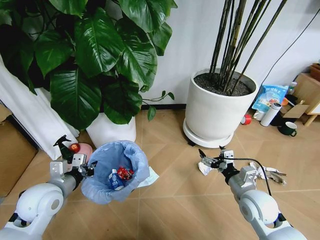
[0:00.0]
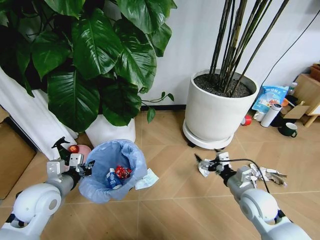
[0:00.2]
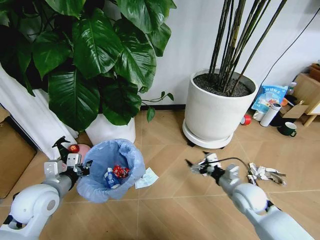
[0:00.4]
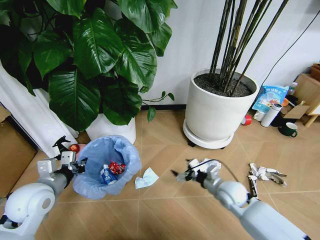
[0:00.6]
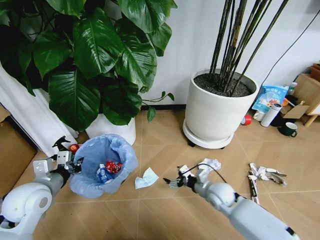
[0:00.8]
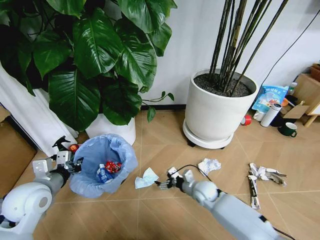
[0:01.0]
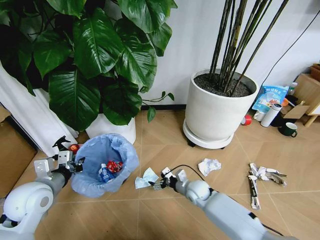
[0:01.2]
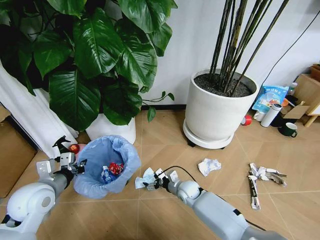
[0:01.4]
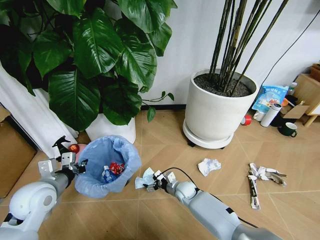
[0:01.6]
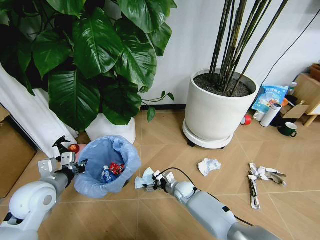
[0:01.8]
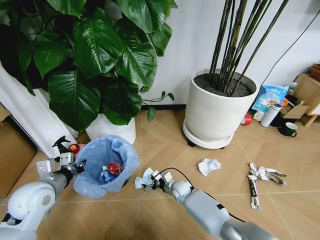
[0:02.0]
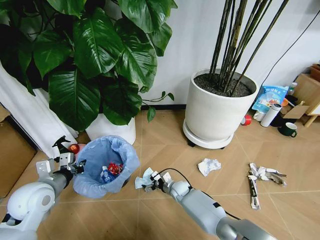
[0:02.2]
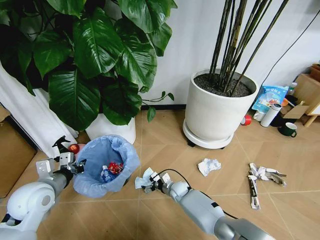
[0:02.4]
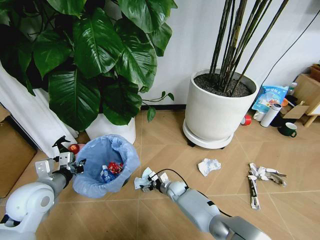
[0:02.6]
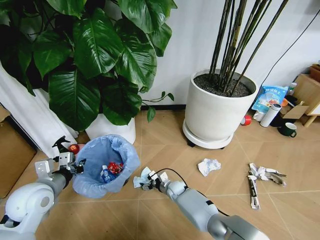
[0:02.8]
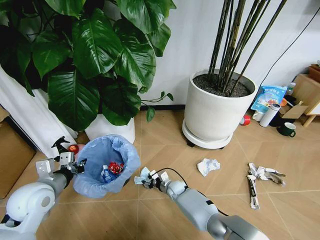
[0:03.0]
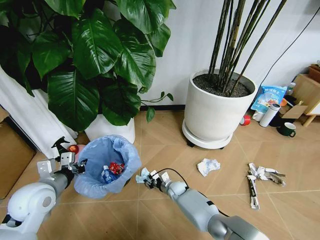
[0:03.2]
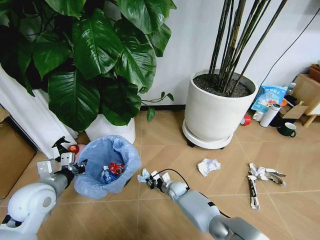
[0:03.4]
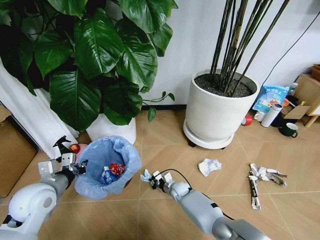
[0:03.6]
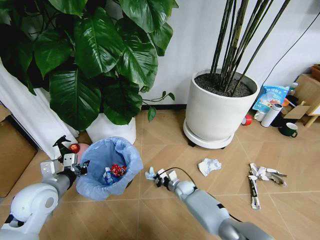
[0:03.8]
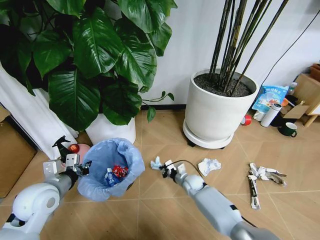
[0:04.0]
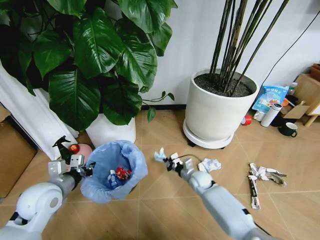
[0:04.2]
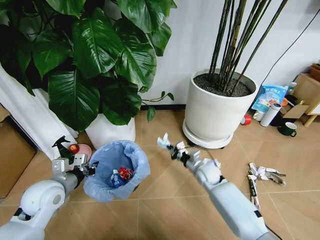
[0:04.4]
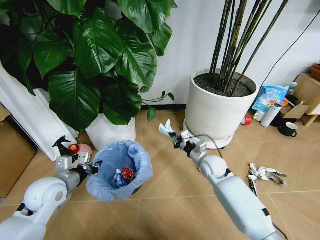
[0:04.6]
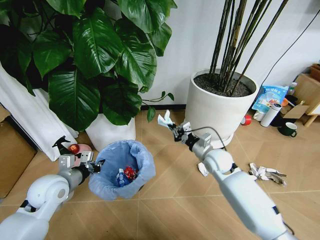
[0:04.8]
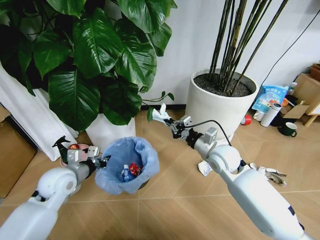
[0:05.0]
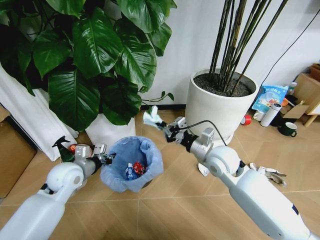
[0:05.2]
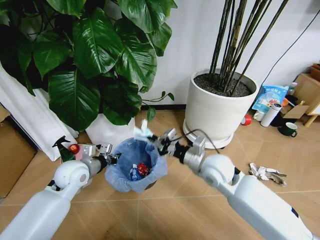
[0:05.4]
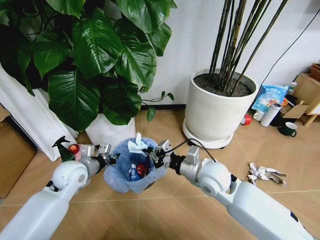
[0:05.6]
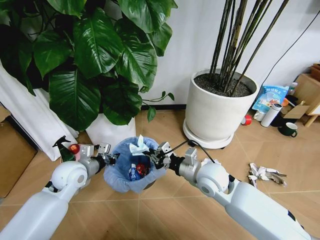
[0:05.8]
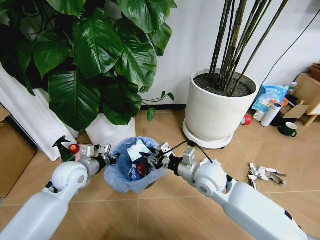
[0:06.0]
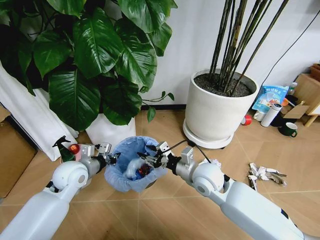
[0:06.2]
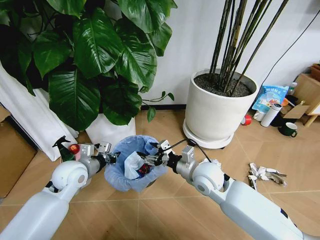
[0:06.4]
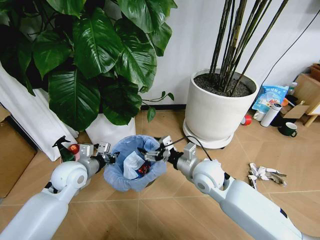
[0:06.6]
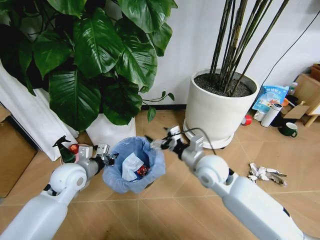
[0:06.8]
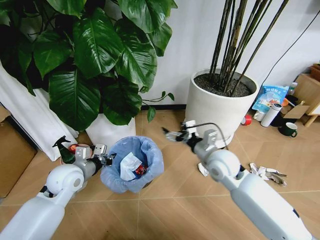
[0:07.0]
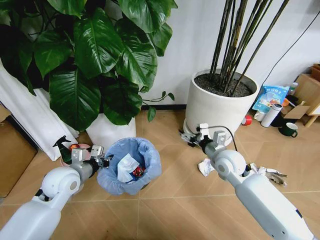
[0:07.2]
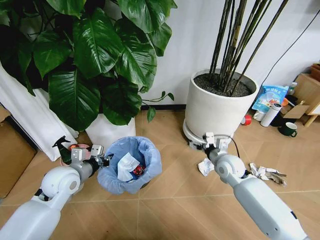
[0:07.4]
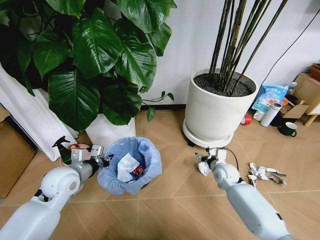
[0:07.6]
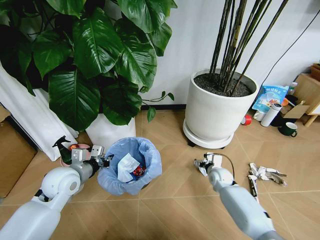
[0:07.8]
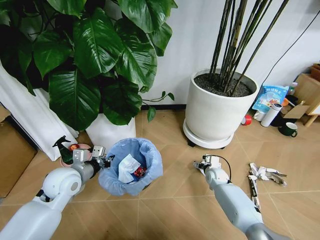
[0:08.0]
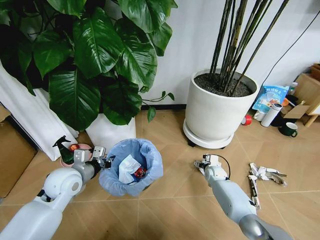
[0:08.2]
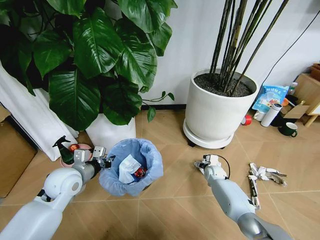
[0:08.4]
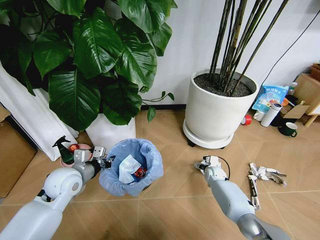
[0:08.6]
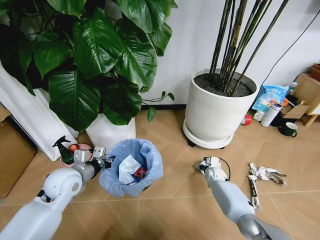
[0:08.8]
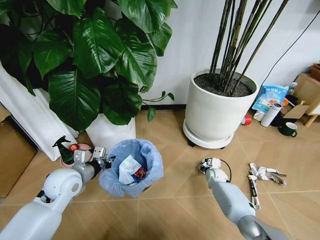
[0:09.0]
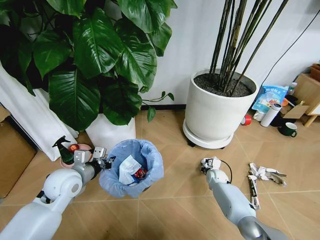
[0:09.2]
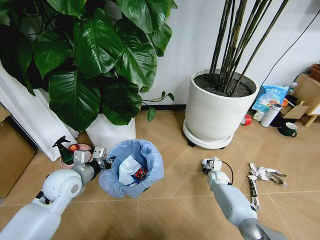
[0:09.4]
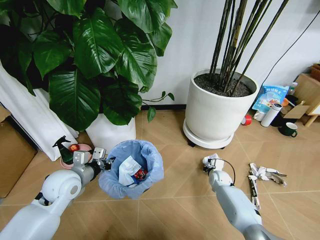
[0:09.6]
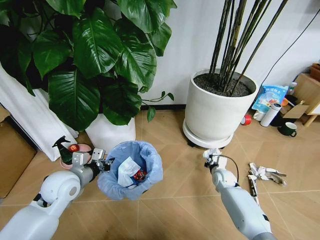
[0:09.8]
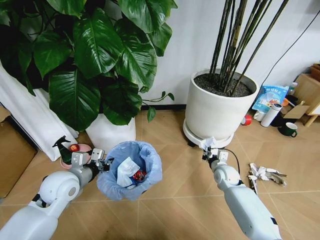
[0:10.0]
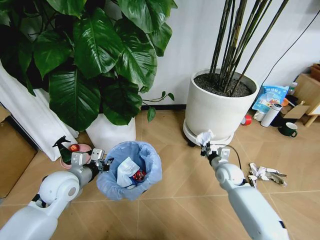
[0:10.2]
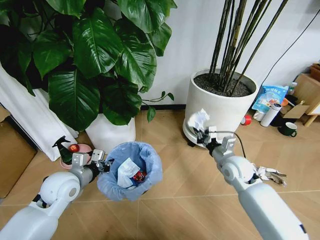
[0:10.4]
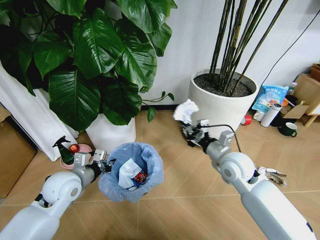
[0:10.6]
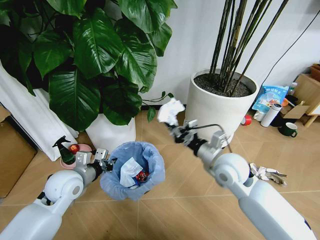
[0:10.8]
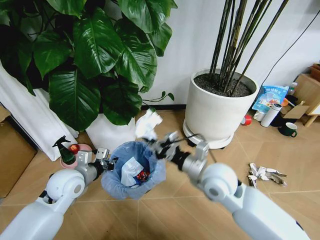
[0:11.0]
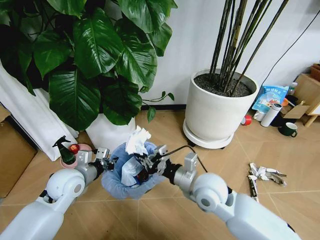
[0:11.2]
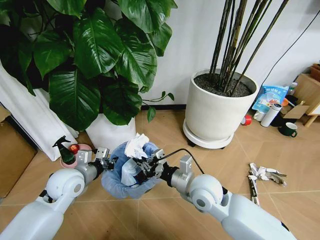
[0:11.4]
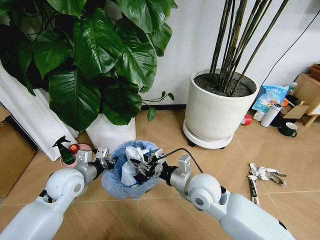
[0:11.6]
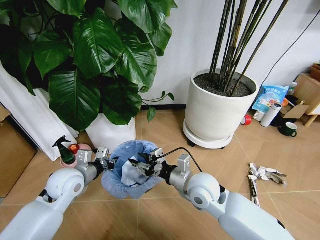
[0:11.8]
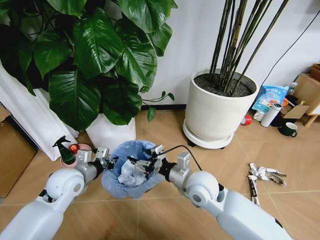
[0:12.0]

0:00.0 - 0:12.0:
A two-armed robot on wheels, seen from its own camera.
Task of the whole recording: Pick up the trash bin and place the garbage on the floor into it.
0:00.0 - 0:01.6: The right gripper travels downward, to the left and forward by about 30 cm.
0:01.6 - 0:03.0: The right gripper shifts by approximately 5 cm, and closes up.
0:03.0 - 0:04.4: The right gripper is displaced upward and to the right by some 20 cm, and closes its fingers.
0:04.4 - 0:06.0: The left gripper shifts about 5 cm forward; the right gripper heads upward and backward, covering about 15 cm.
0:06.0 - 0:07.6: The right gripper heads downward, to the right and forward, covering about 20 cm, and opens.
0:07.6 - 0:09.0: The right gripper shifts roughly 10 cm downward, and closes.
0:09.0 - 0:10.4: The right gripper is displaced upward by about 20 cm, and closes.
0:10.4 - 0:12.0: The right gripper goes some 15 cm to the left and backward, and opens.

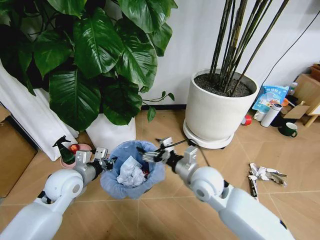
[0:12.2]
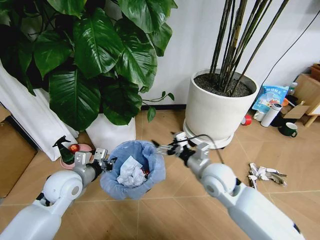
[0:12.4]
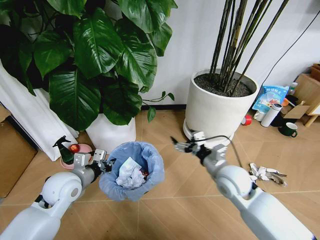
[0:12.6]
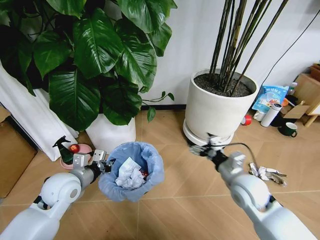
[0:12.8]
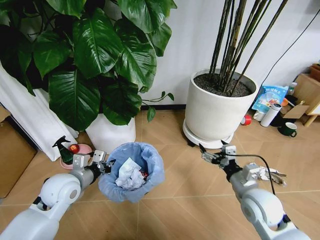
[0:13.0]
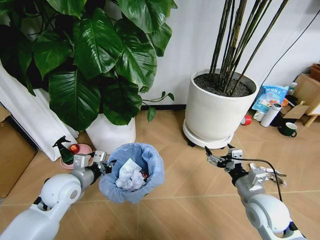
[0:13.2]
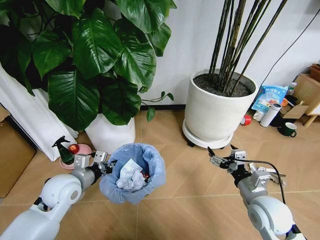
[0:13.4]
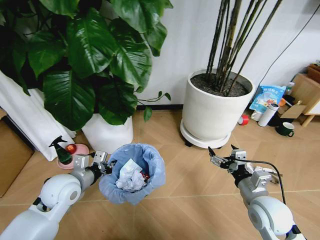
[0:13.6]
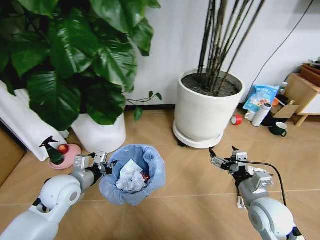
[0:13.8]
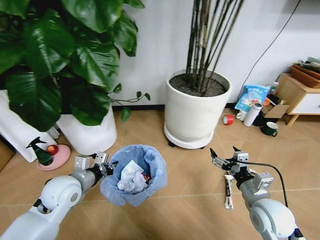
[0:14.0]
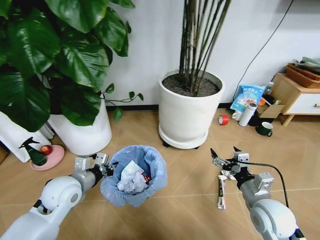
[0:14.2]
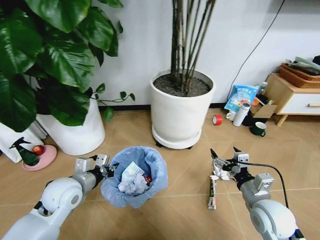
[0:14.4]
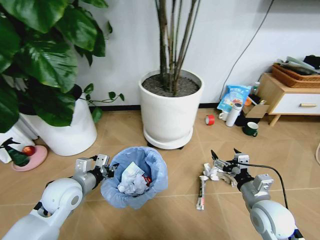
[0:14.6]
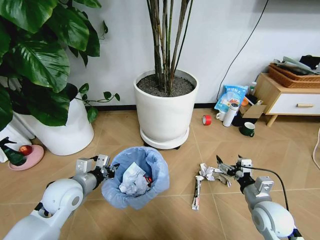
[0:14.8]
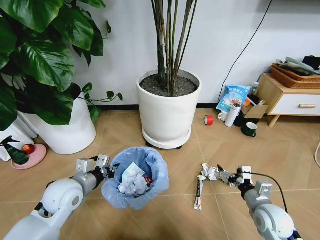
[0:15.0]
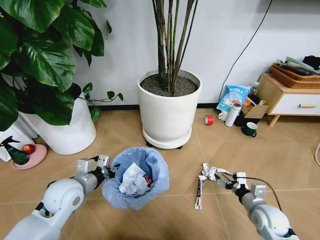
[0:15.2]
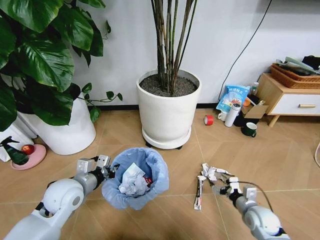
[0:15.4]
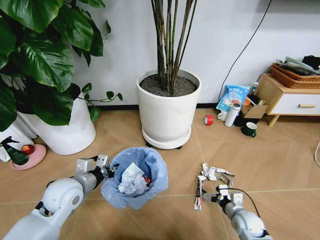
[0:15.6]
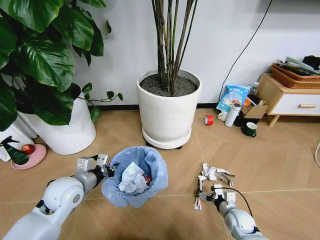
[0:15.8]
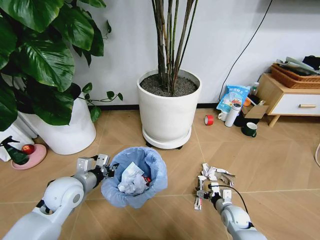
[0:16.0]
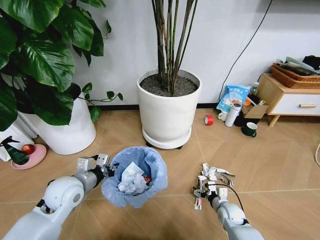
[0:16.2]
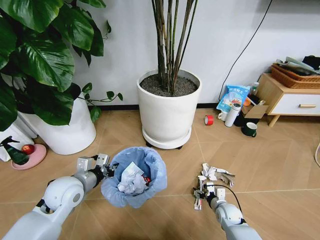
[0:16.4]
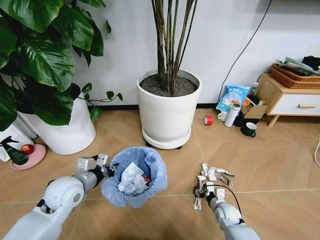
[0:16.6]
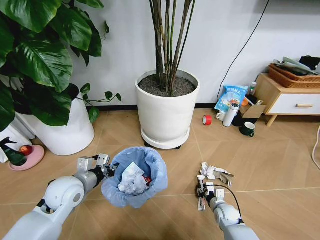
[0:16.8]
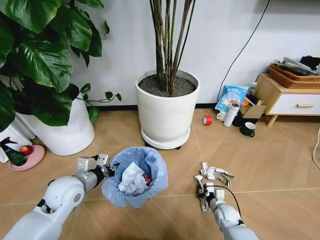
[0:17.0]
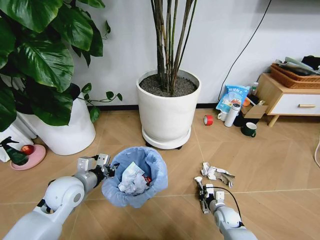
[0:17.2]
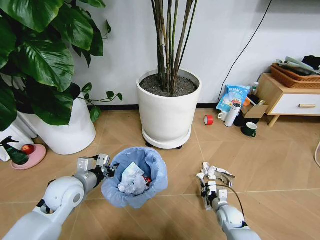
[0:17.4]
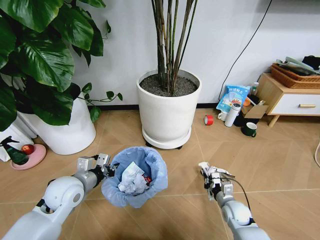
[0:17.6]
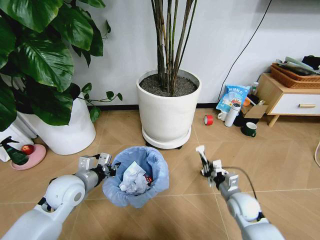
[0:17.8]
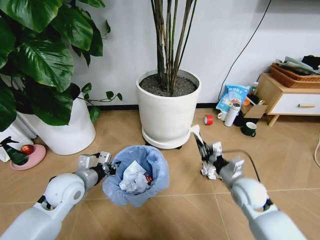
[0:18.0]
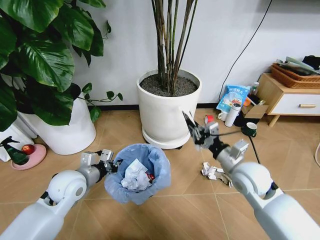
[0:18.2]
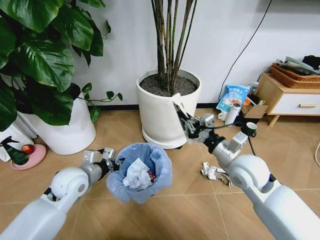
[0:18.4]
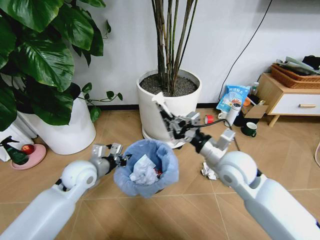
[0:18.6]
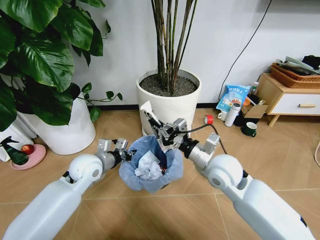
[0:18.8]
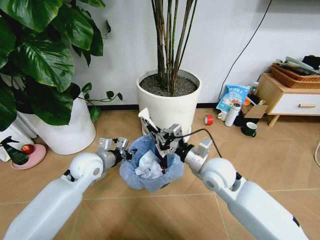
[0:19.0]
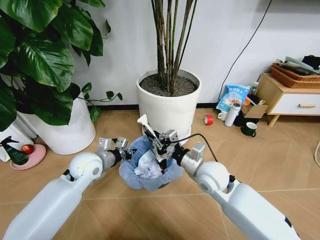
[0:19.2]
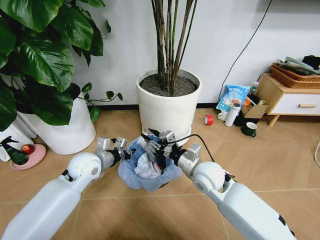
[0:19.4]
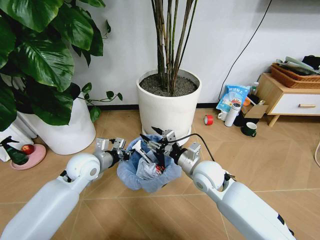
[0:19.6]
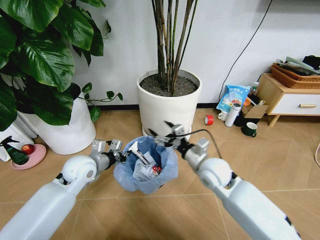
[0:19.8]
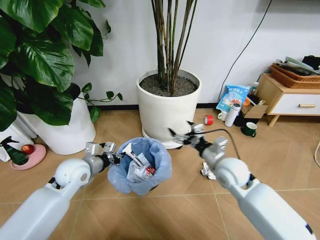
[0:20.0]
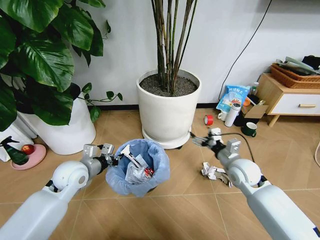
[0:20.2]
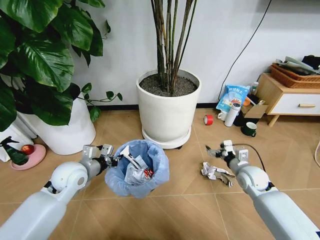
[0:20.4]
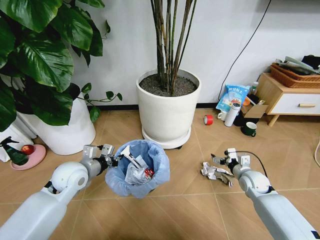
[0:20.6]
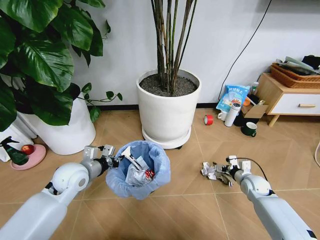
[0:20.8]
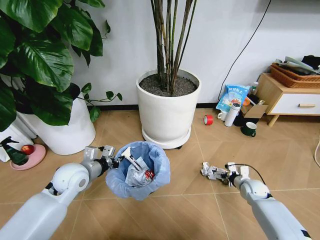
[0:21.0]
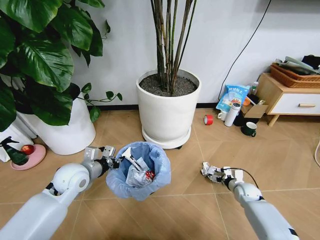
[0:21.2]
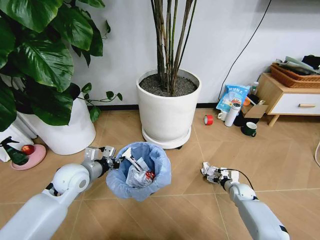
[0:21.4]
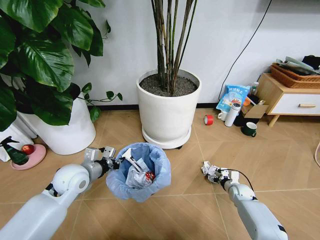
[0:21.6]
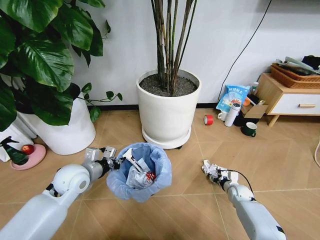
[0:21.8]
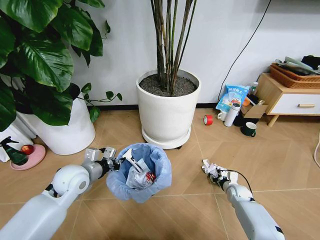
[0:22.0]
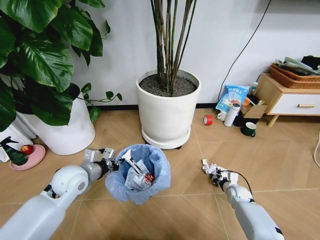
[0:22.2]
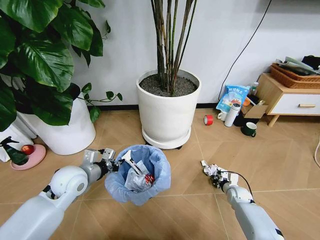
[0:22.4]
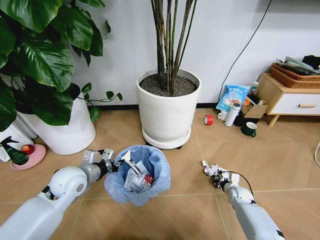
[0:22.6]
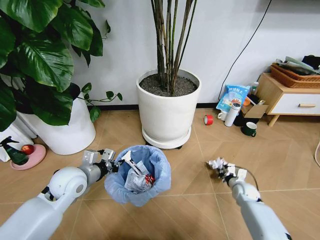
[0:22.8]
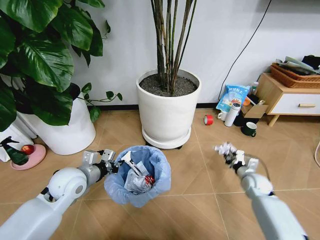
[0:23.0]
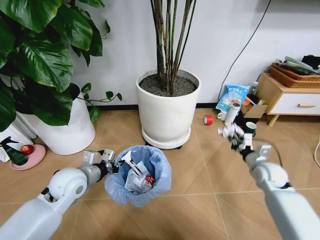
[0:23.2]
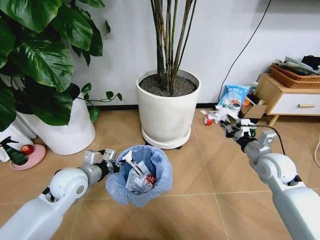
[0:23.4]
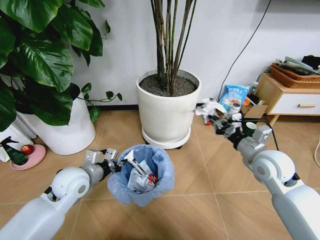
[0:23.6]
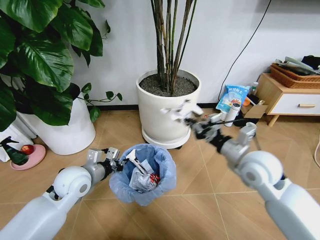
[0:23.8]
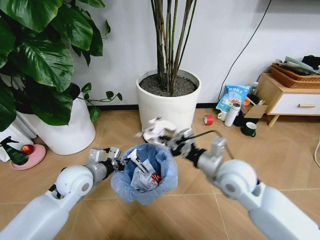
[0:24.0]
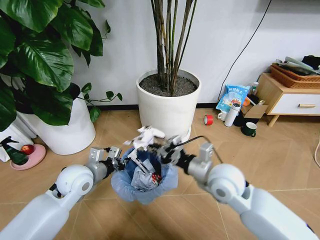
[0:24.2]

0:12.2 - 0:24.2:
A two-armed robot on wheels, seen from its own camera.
Task of the whole recording: Pick up the trash bin and place the garbage on the floor into it.
0:12.2 - 0:13.8: The right gripper goes approximately 20 cm to the right and backward.
0:13.8 - 0:15.2: The right gripper travels downward and to the right by roughly 15 cm.
0:15.2 - 0:16.6: The right gripper moves downward and to the left, approximately 15 cm, and closes up.
0:16.6 - 0:18.2: The right gripper travels upward by some 30 cm, and closes its fingers.
0:18.2 - 0:19.8: The right gripper heads to the left, covering some 10 cm, and opens up, while the left gripper moves forward, approximately 5 cm.
0:19.8 - 0:21.2: The right gripper travels downward and to the right by some 35 cm.
0:21.2 - 0:22.6: The right gripper closes.
0:22.6 - 0:24.2: The right gripper shifts roughly 35 cm upward and to the left.
